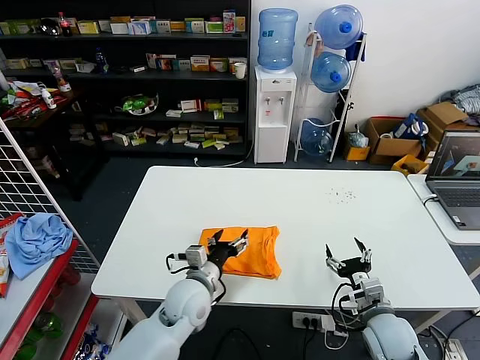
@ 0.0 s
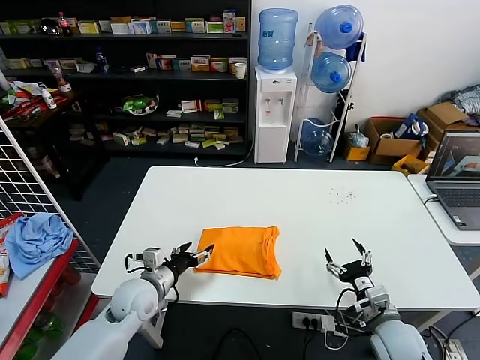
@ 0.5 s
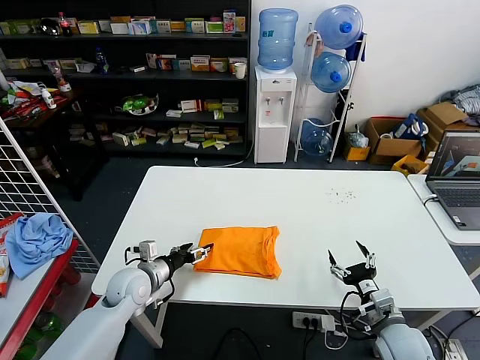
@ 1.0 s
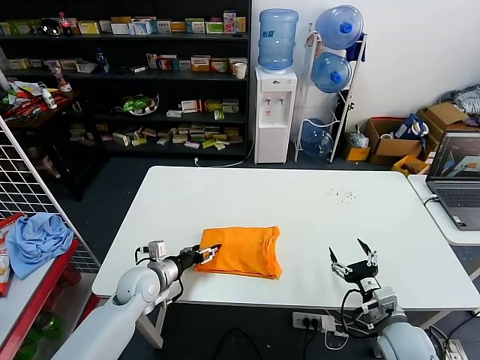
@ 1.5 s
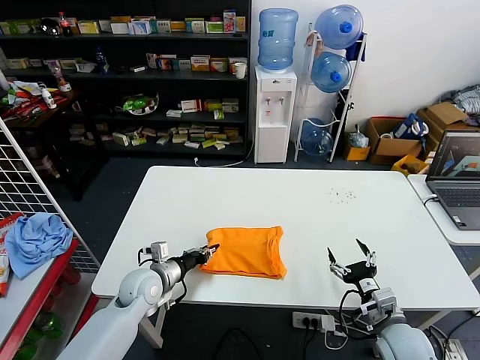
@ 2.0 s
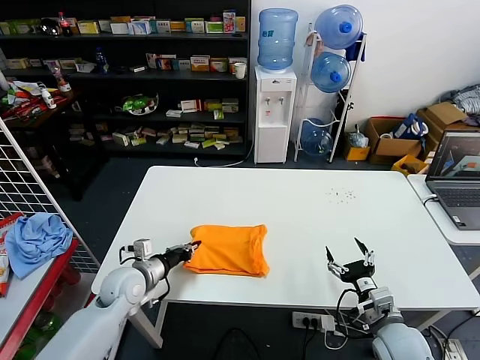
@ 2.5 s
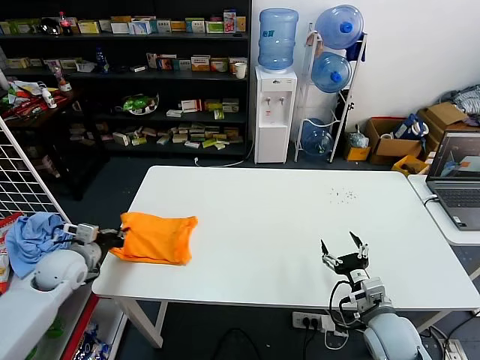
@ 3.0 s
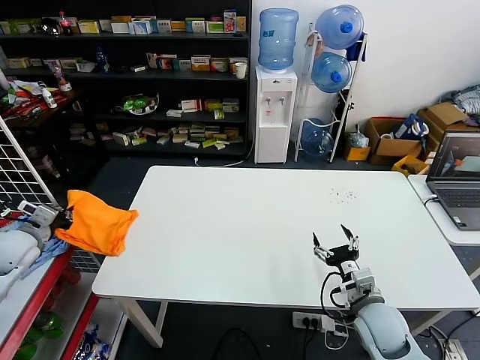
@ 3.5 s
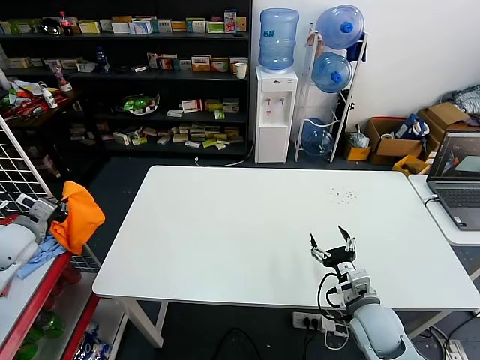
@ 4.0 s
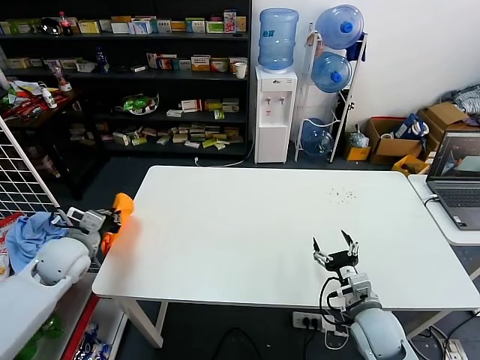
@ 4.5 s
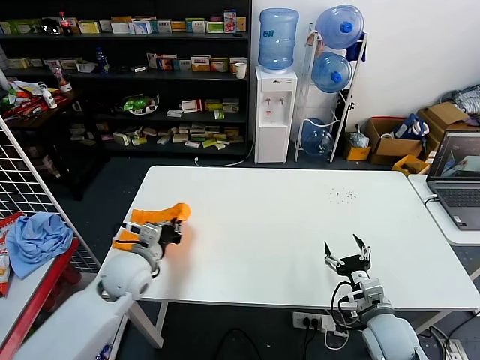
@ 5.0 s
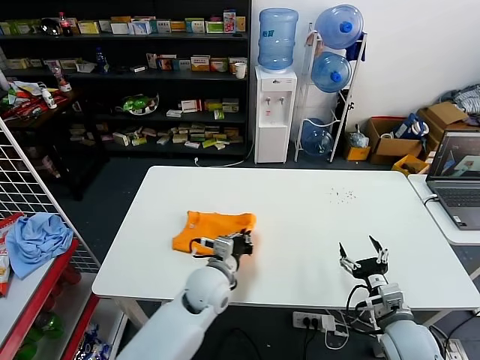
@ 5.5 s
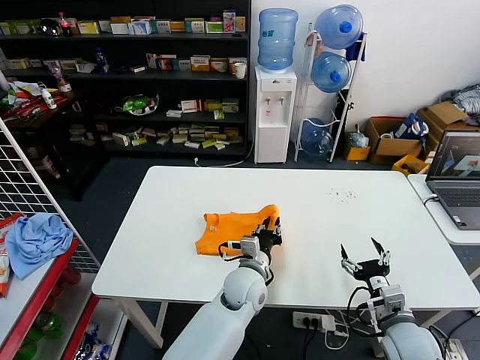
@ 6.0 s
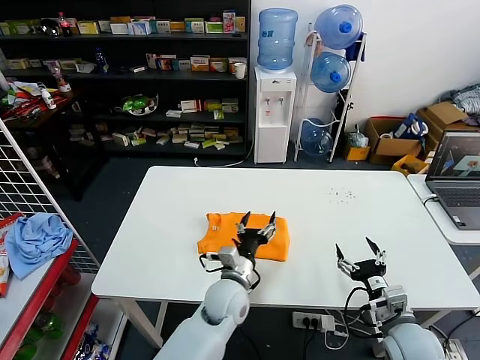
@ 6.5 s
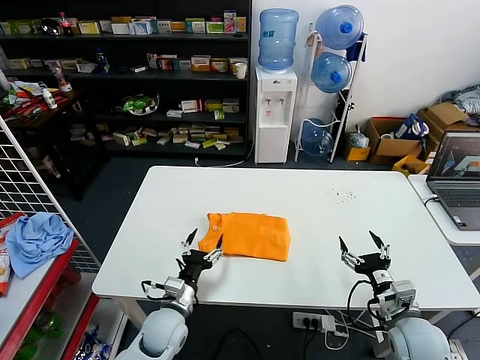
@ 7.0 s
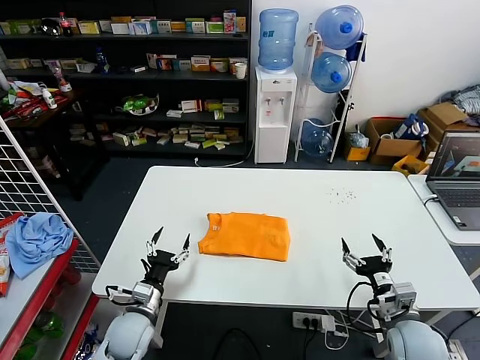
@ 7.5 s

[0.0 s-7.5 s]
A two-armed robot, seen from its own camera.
Task of the whole recording: fold and organize the clothes.
Step, 0.0 to 6.0 s: Flip the folded clothes over with left gripper.
0.0 to 2.0 s: The left gripper moves to the left, some 15 cm, and closes its fingers.
2.0 to 4.0 s: The left gripper shifts roughly 30 cm to the left and upward; the right gripper changes place by roughly 5 cm.
4.0 to 5.5 s: The left gripper heads to the right, covering approximately 40 cm; the right gripper ends up about 5 cm from where it was.
5.5 to 7.5 s: The left gripper moves to the left, downward and backward, some 20 cm, and opens.
